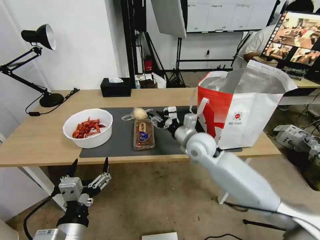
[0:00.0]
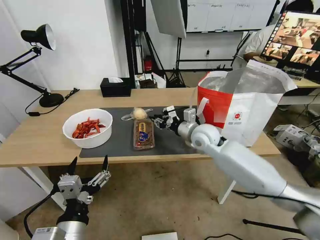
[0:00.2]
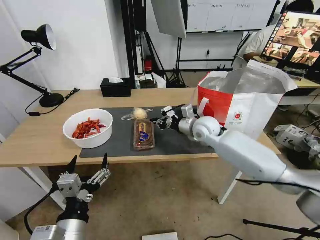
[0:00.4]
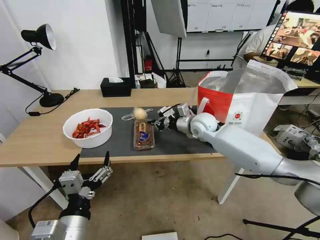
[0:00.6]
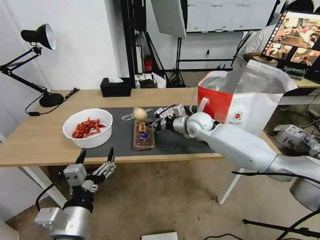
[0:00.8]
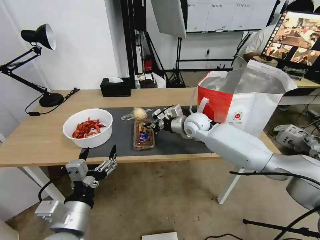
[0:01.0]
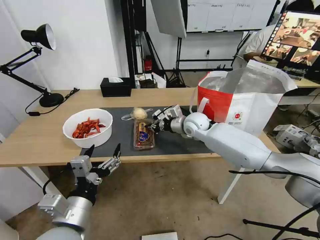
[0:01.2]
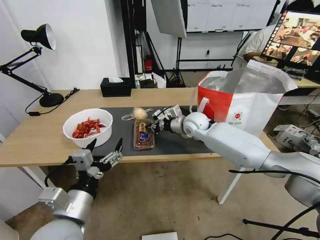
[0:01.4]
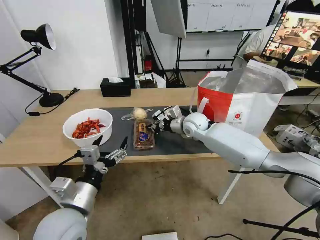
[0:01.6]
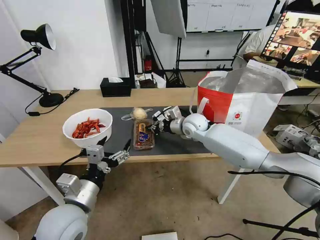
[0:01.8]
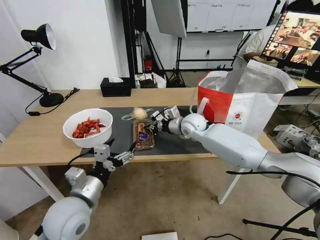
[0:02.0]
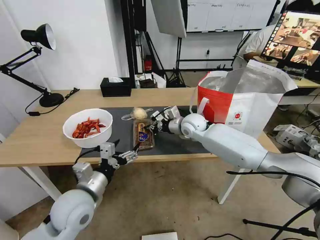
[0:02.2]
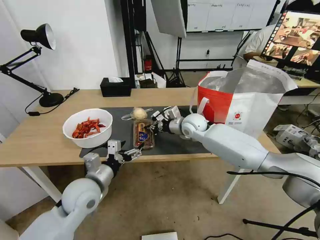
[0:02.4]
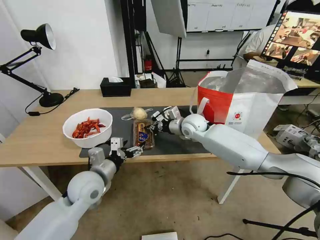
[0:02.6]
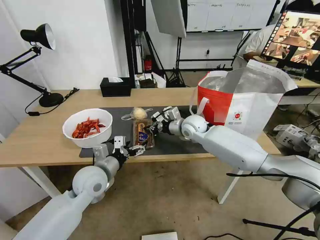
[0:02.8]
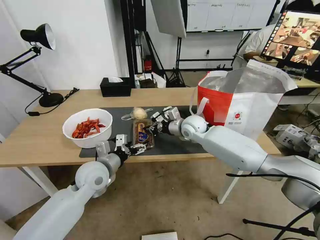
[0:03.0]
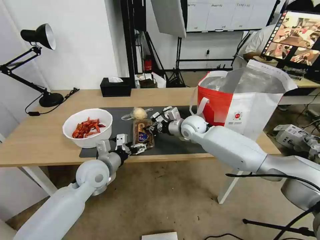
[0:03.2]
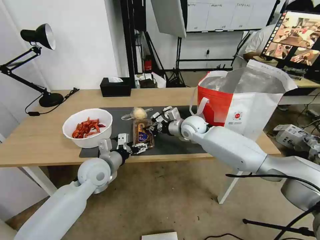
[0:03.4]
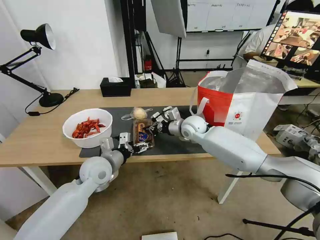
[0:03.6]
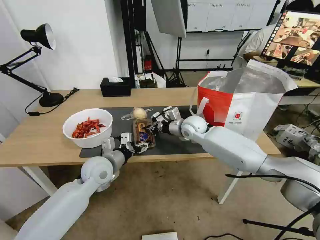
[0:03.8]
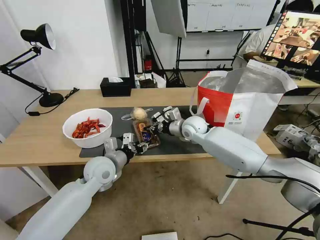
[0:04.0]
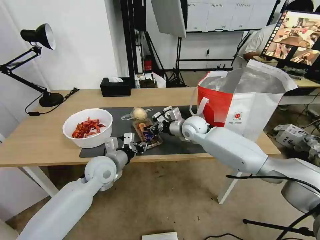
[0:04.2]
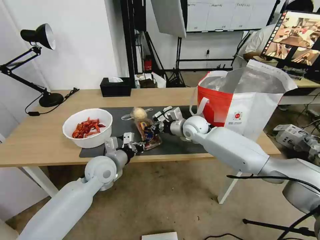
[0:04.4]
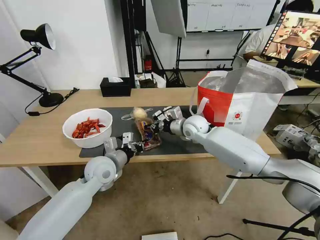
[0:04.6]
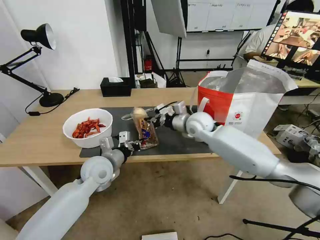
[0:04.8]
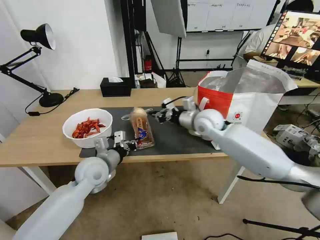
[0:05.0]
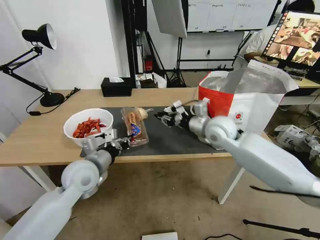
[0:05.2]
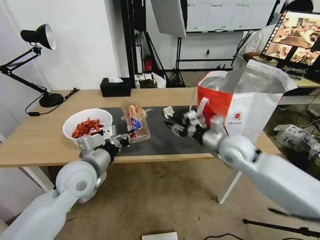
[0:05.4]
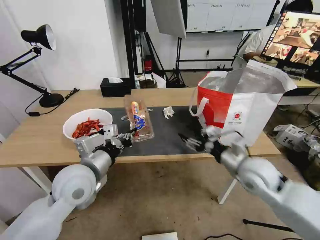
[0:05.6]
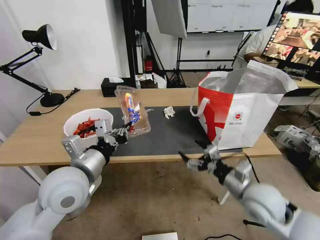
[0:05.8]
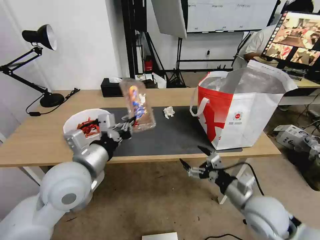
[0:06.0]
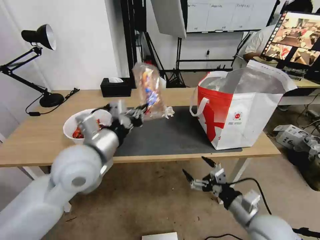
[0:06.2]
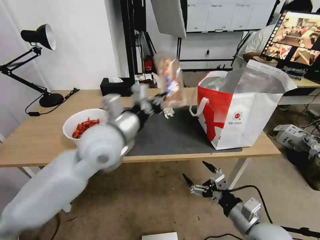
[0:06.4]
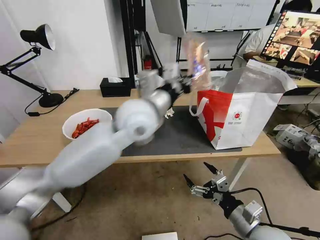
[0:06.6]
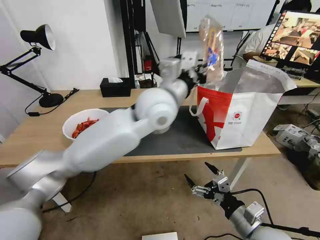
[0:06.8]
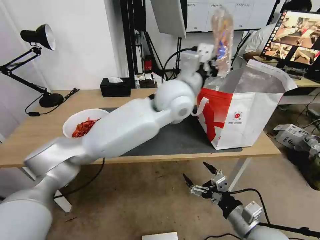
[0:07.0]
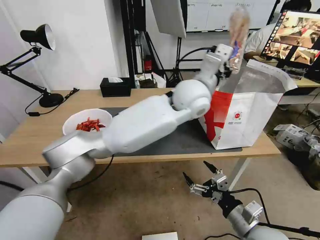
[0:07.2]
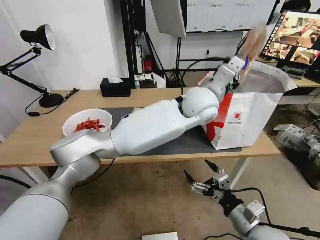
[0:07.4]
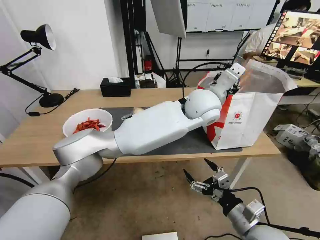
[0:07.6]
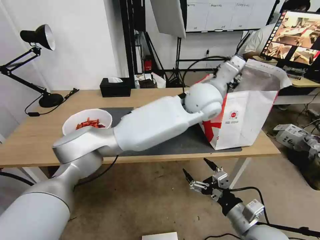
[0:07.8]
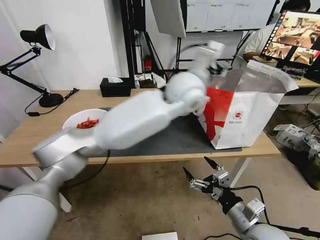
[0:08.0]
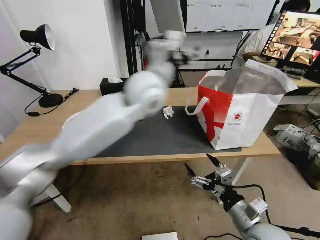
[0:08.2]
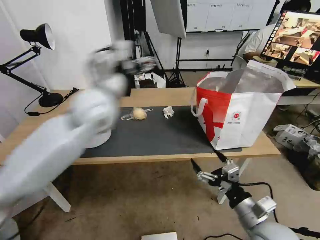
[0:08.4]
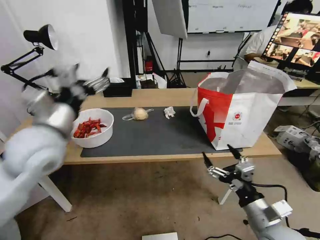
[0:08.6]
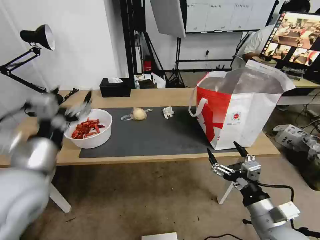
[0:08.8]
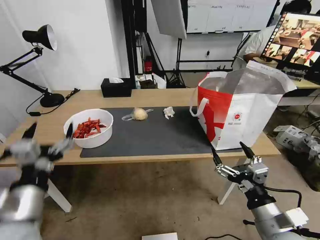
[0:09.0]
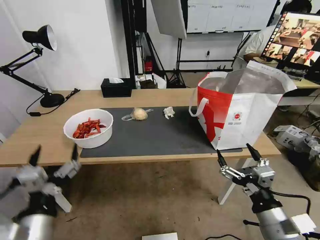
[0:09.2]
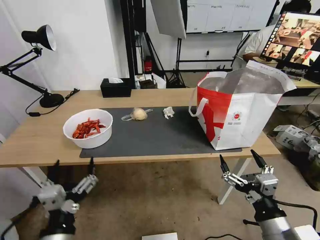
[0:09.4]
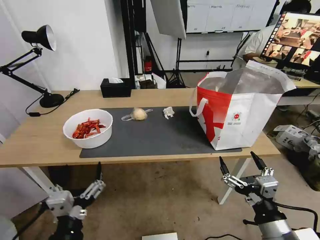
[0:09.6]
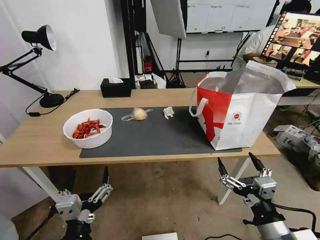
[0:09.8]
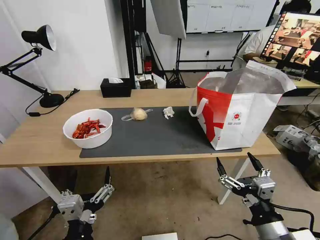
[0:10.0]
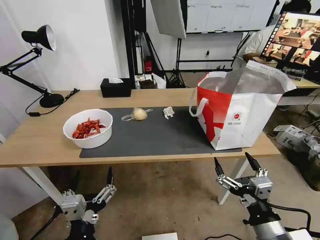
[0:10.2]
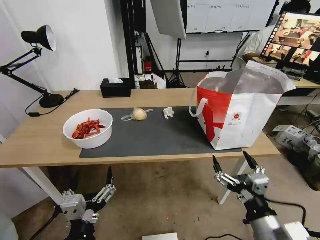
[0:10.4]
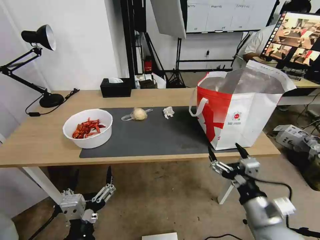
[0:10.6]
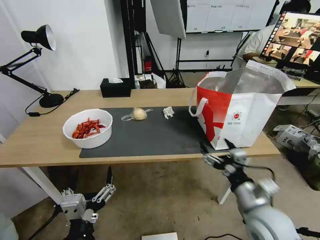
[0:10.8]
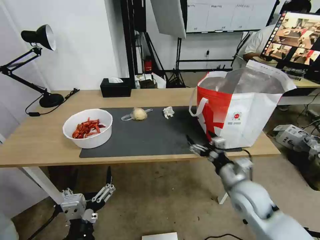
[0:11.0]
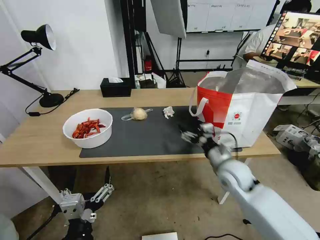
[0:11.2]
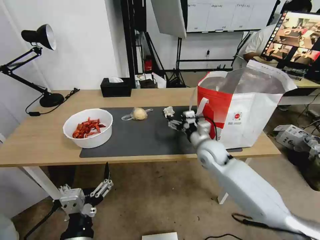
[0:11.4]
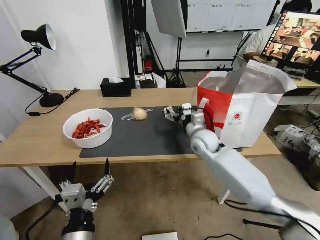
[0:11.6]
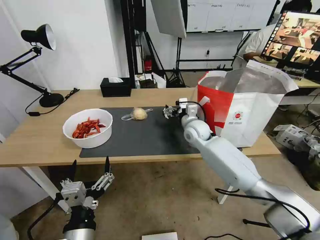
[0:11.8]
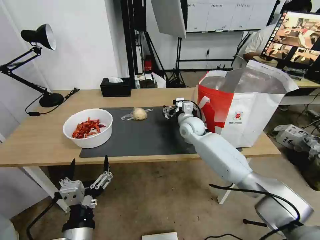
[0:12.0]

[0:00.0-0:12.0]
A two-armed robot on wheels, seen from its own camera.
Task of the whole recording: Pick up the trash from the table and place it into the takeout bag.
0:00.0 to 0:01.6: The grippers both shift forward by some 10 cm. The right gripper closes its fingers.
0:01.6 to 0:03.0: The left gripper heads forward, covering some 15 cm.
0:03.0 to 0:04.4: The left gripper closes its fingers.
0:04.4 to 0:06.0: The left gripper travels upward and backward by approximately 15 cm, while the right gripper is displaced backward and to the right by approximately 30 cm, and opens up.
0:06.0 to 0:07.6: The right gripper shifts some 10 cm backward; the left gripper shifts some 40 cm to the right and forward.
0:07.6 to 0:09.0: The left gripper heads to the left and backward, covering about 50 cm, and opens.
0:09.0 to 0:10.4: The left gripper is displaced to the right, backward and downward by roughly 15 cm.
0:10.4 to 0:12.0: The right gripper moves forward, approximately 40 cm.

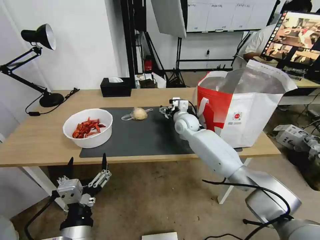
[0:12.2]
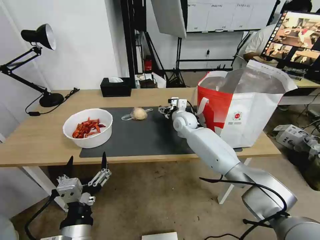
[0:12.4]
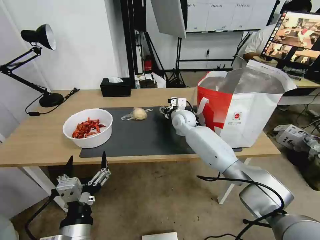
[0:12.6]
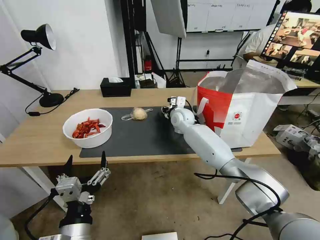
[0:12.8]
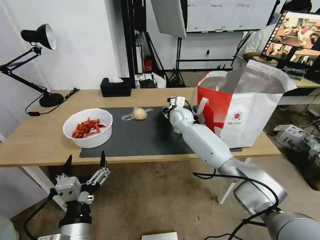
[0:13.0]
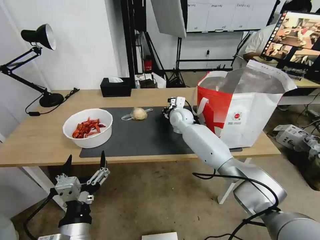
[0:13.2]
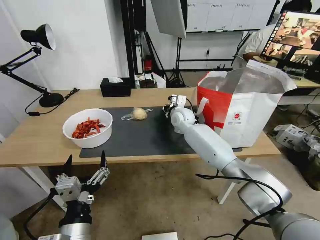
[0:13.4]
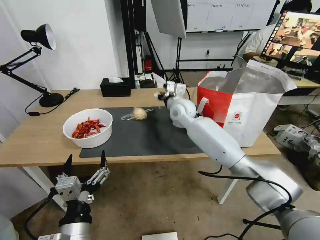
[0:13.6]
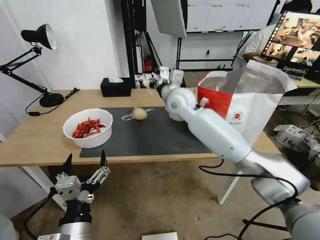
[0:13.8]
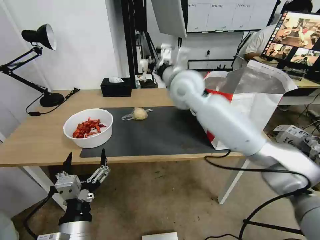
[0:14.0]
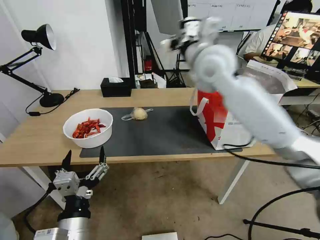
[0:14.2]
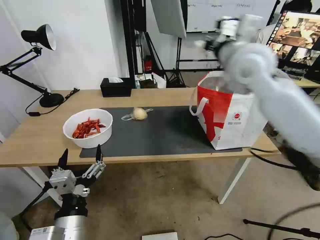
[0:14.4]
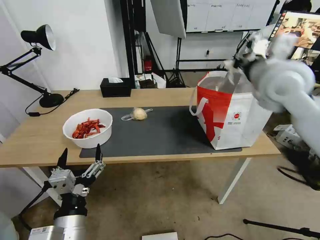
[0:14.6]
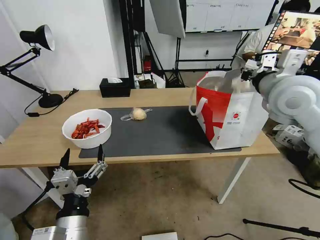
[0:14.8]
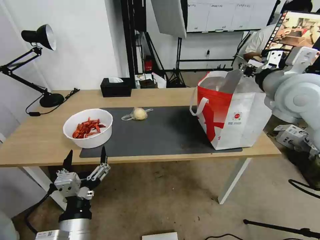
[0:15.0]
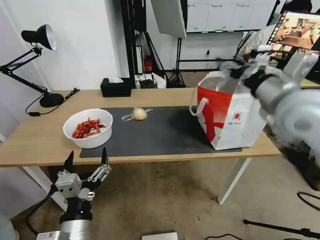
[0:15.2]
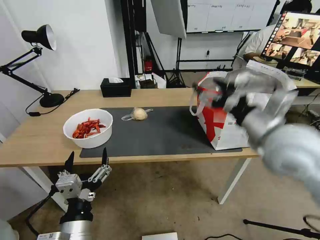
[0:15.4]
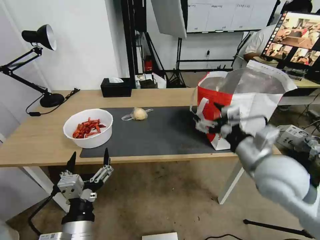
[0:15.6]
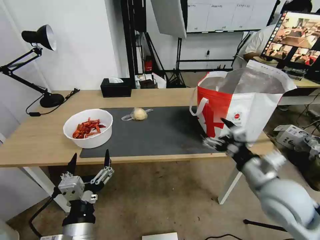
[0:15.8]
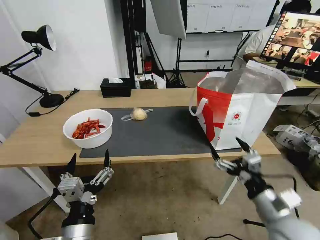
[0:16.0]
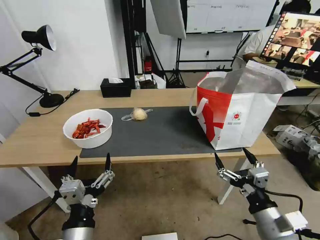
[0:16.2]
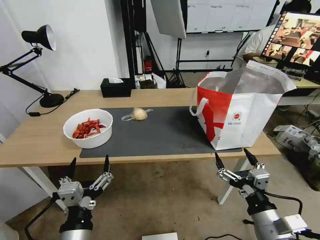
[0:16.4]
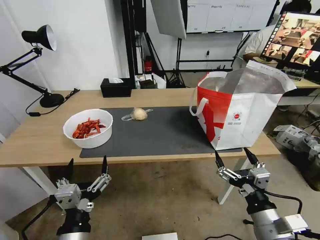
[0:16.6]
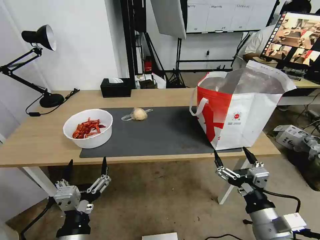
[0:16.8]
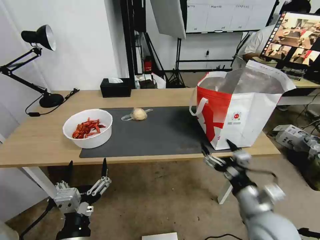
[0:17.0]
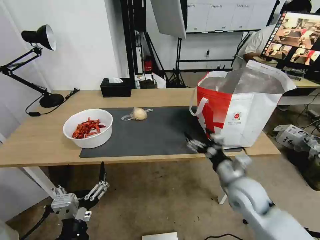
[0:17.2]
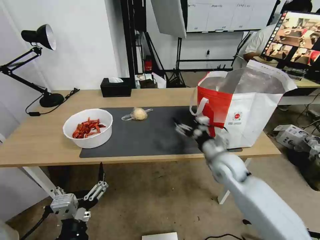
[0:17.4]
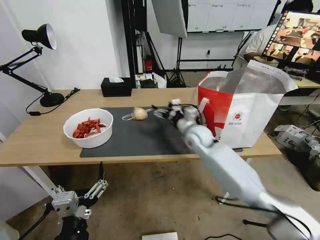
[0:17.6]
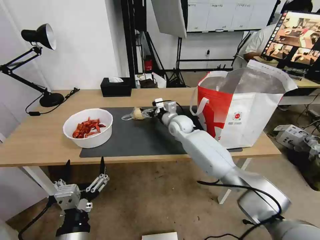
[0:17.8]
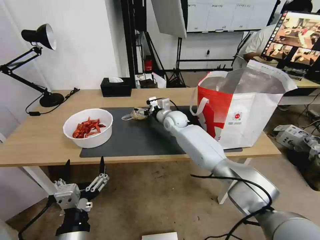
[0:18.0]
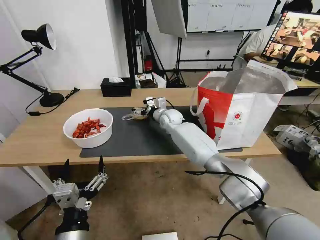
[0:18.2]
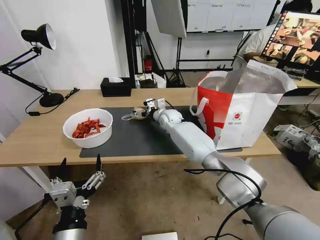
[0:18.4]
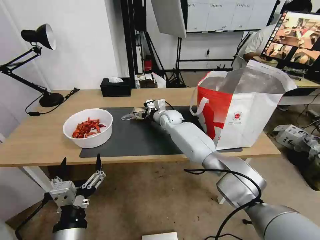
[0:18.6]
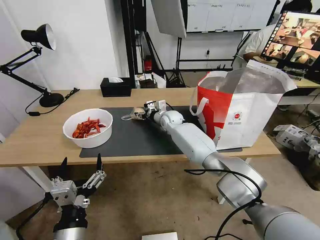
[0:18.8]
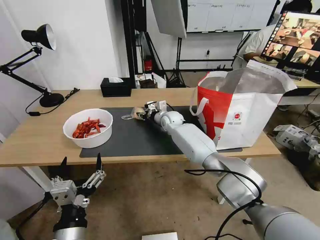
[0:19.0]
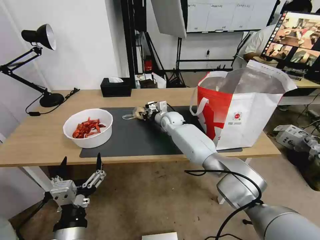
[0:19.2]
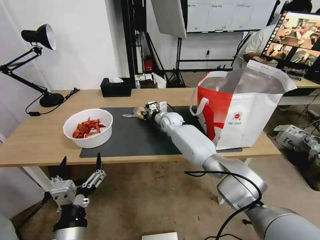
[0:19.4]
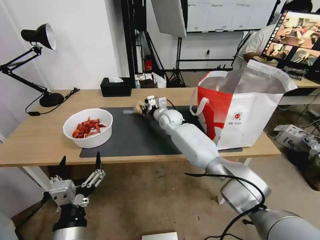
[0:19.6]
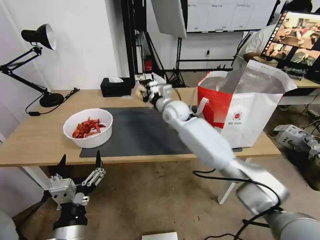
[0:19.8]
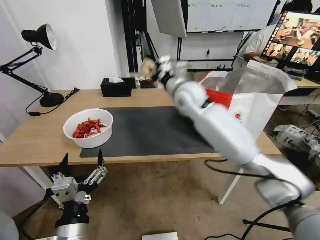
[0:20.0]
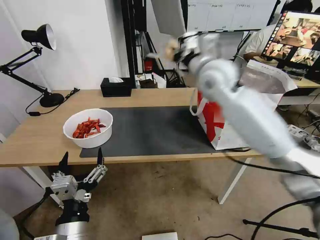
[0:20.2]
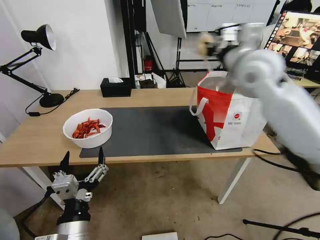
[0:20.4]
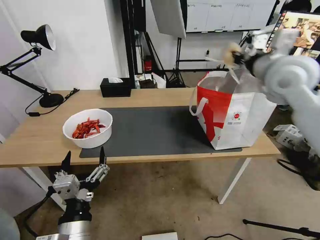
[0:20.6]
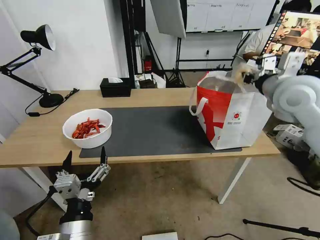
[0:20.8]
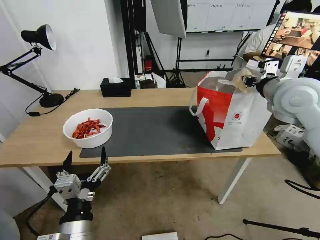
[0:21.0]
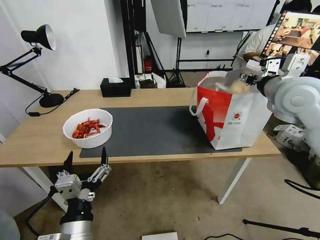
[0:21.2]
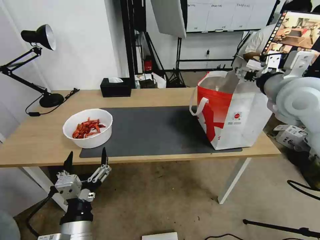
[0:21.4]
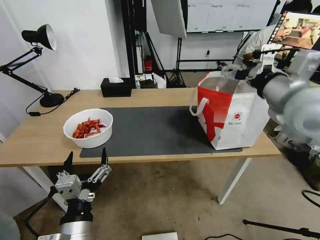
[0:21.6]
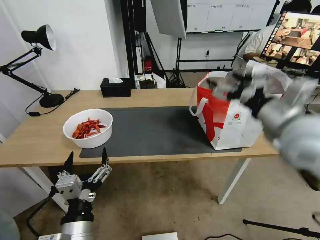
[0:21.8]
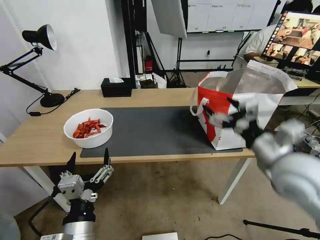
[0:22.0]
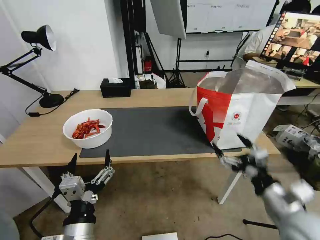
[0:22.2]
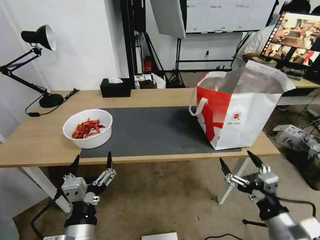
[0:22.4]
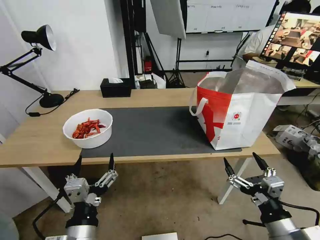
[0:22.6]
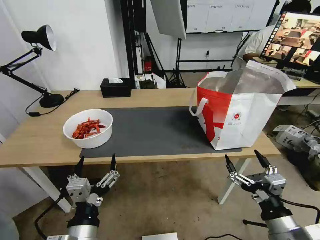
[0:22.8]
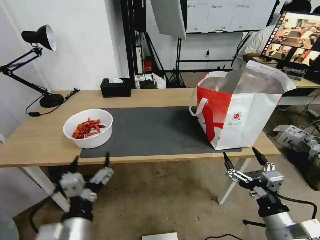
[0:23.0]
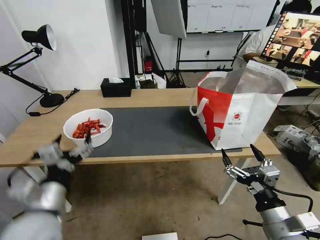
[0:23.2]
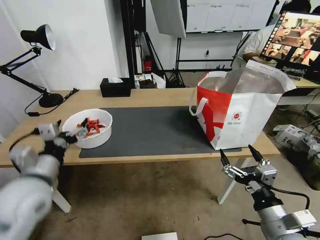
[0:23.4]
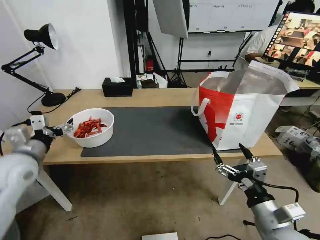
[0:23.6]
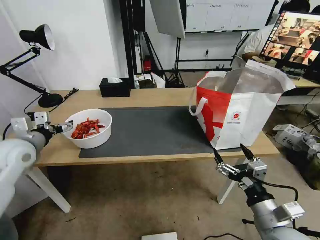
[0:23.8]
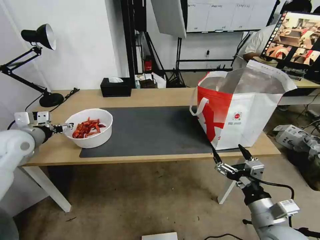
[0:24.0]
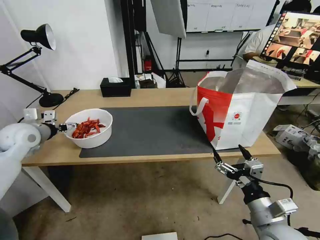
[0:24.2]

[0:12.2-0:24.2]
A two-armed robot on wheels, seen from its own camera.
Task of the whole recording: Pick up the trash from the table and place it into the takeout bag.
0:12.2 to 0:13.8: The right gripper moves upward, approximately 15 cm, and closes its fingers.
0:13.8 to 0:15.2: The right gripper travels to the right, backward and upward by some 30 cm, and opens its fingers.
0:15.2 to 0:16.6: The right gripper shifts approximately 35 cm downward and backward, and opens its fingers.
0:16.6 to 0:18.2: The right gripper goes roughly 50 cm forward and to the left.
0:18.2 to 0:19.8: The right gripper is displaced upward and backward by about 10 cm, and closes up.
0:19.8 to 0:21.2: The right gripper is displaced to the right, upward and backward by about 35 cm, and opens.
0:21.2 to 0:22.6: The right gripper heads backward and downward, covering approximately 40 cm, and opens.
0:22.6 to 0:24.2: The right gripper shifts by approximately 5 cm, while the left gripper heads forward and to the left, covering approximately 40 cm.
